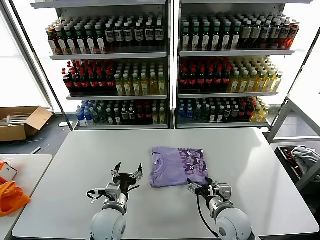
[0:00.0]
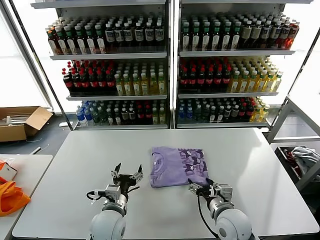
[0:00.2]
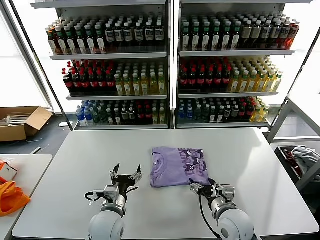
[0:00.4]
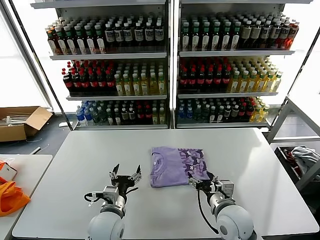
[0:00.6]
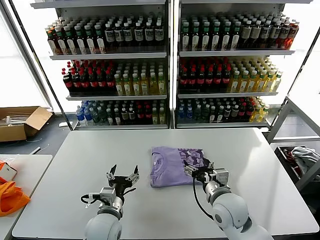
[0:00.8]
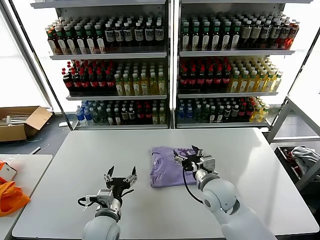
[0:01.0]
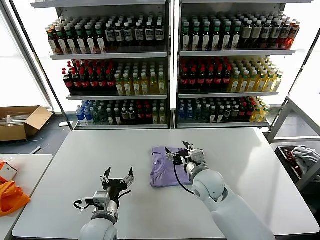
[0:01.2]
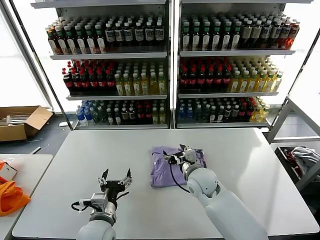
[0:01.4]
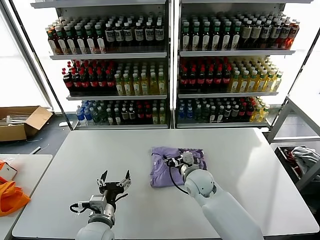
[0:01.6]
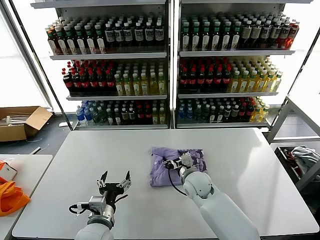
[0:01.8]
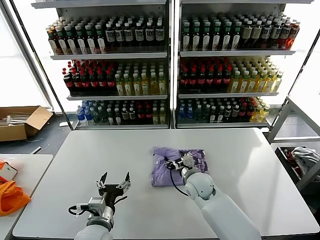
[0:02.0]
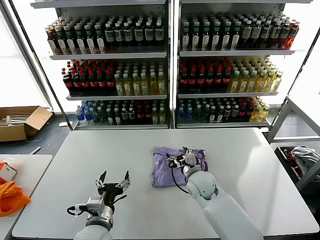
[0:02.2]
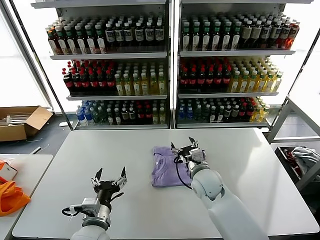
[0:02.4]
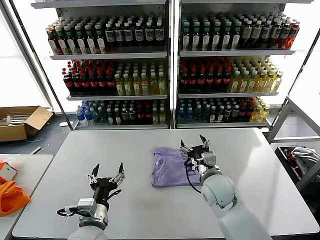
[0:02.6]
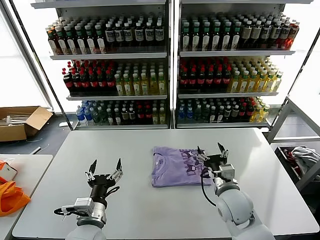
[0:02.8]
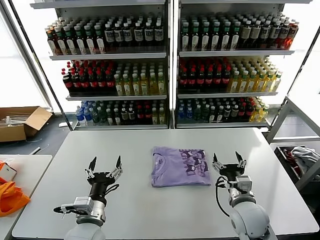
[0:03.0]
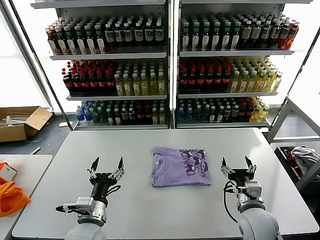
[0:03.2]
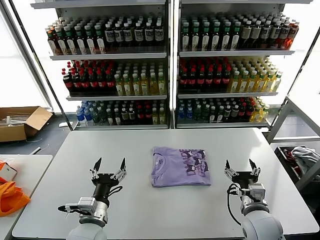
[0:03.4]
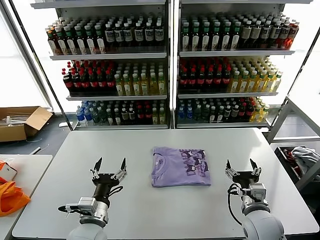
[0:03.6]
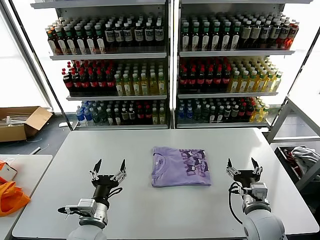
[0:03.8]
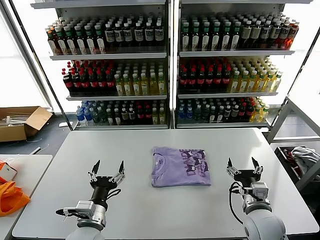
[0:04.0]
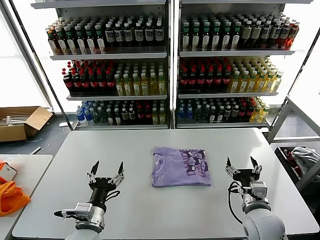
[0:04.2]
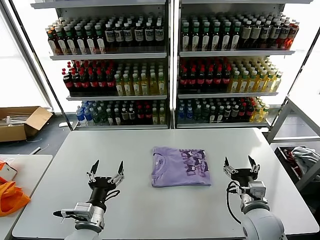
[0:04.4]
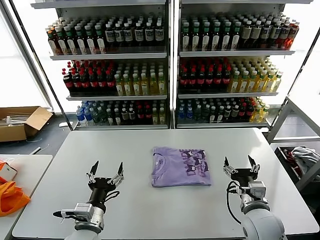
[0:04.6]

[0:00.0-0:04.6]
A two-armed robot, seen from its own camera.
Task of the whole recording: fold and organize the clothes.
Step, 0:00.0 to 0:02.2: Drag the clothes to the center of the table.
0:00.0 to 0:01.6: The right gripper travels forward and to the left by some 15 cm.
0:01.6 to 0:03.0: The right gripper shifts about 15 cm backward and to the right.
0:03.0 to 0:04.6: The right gripper moves approximately 5 cm.

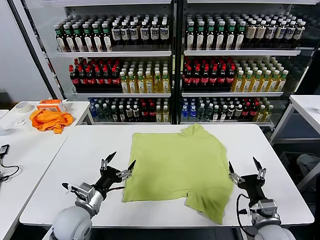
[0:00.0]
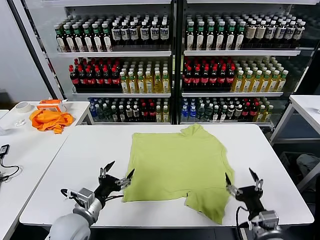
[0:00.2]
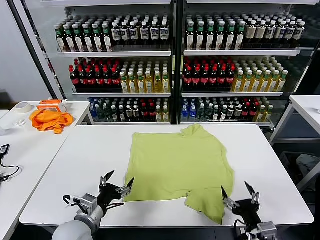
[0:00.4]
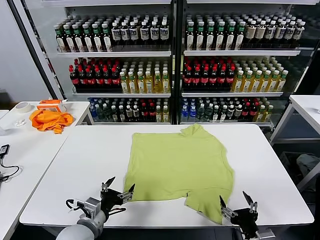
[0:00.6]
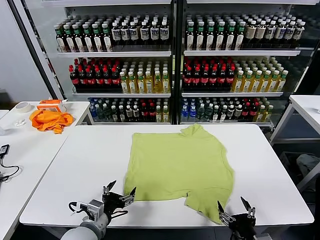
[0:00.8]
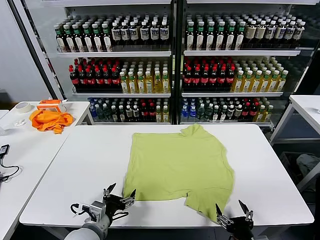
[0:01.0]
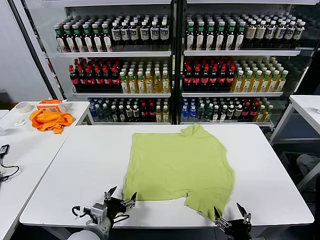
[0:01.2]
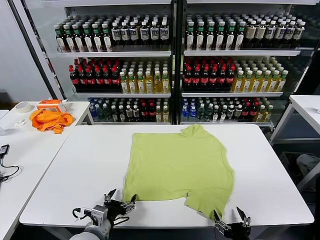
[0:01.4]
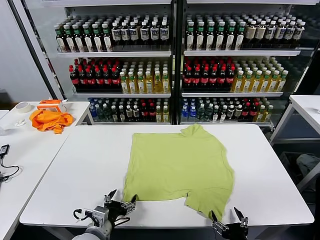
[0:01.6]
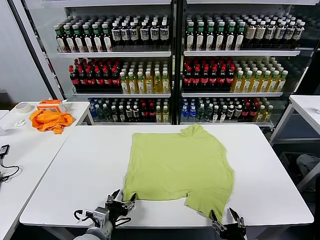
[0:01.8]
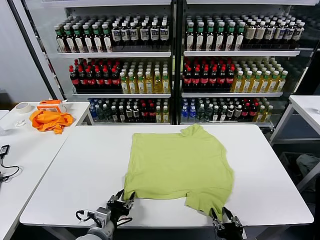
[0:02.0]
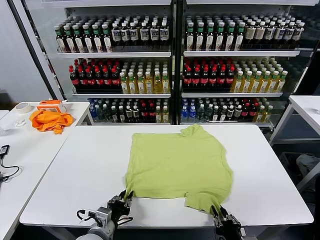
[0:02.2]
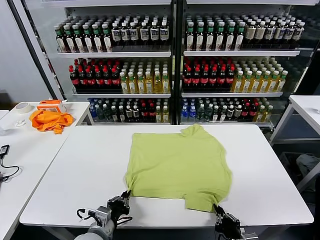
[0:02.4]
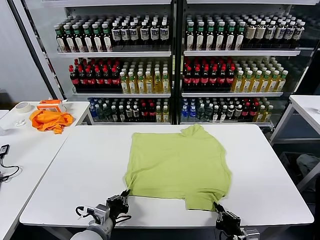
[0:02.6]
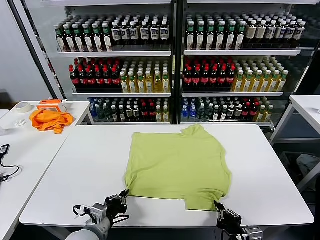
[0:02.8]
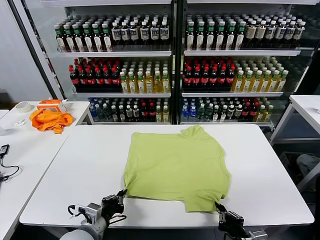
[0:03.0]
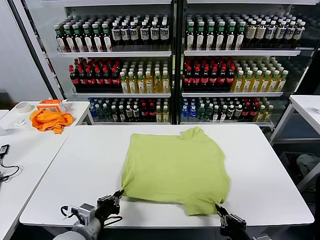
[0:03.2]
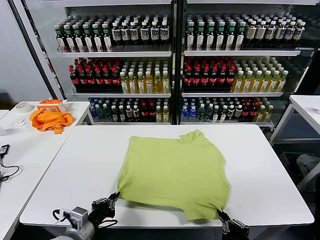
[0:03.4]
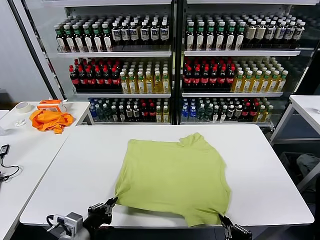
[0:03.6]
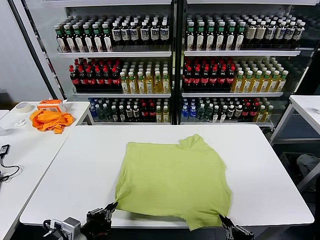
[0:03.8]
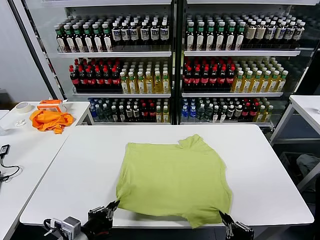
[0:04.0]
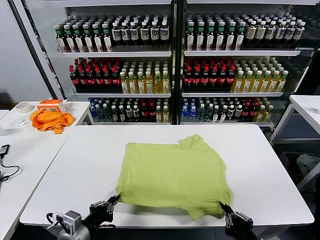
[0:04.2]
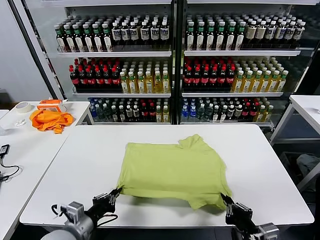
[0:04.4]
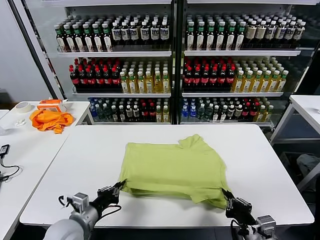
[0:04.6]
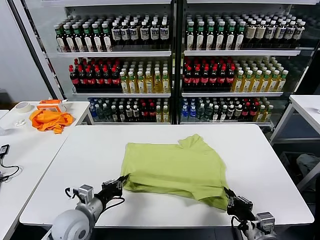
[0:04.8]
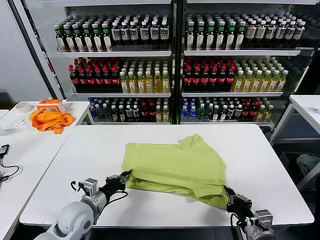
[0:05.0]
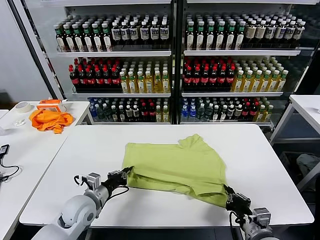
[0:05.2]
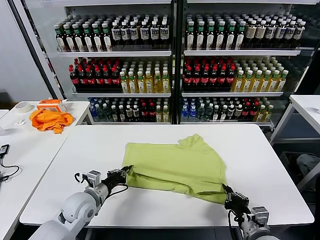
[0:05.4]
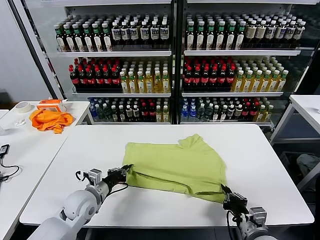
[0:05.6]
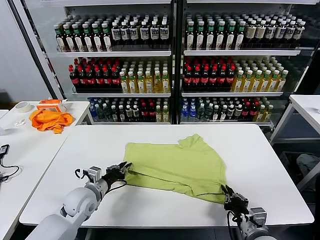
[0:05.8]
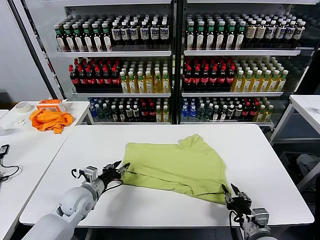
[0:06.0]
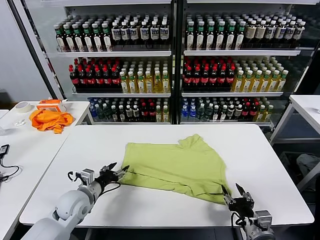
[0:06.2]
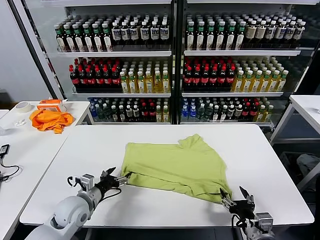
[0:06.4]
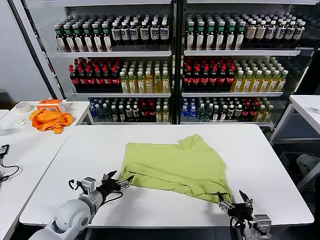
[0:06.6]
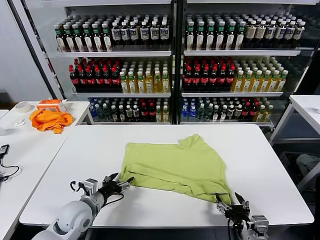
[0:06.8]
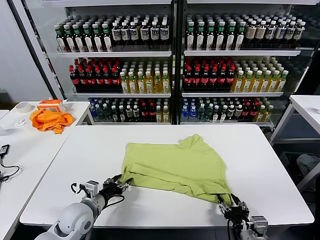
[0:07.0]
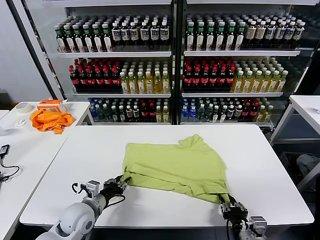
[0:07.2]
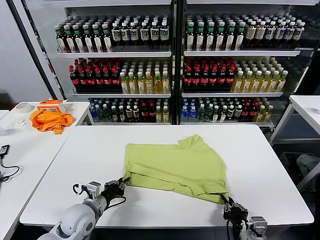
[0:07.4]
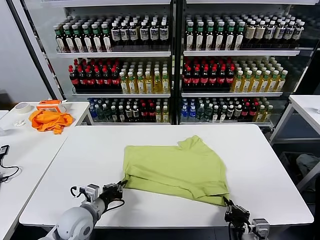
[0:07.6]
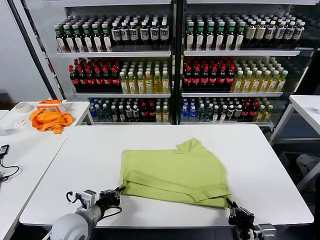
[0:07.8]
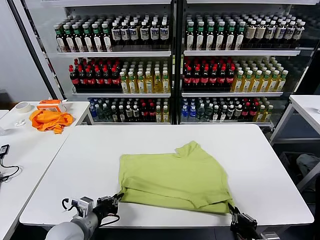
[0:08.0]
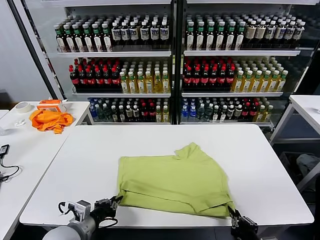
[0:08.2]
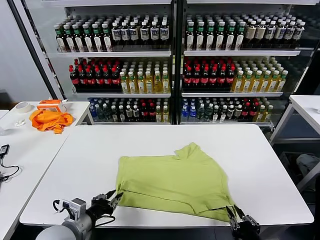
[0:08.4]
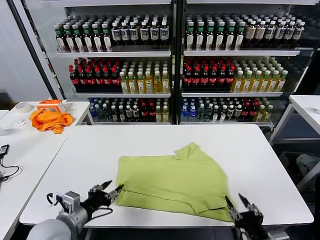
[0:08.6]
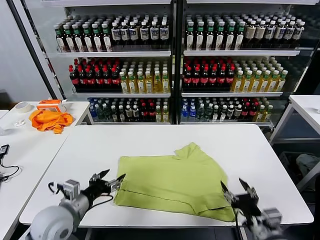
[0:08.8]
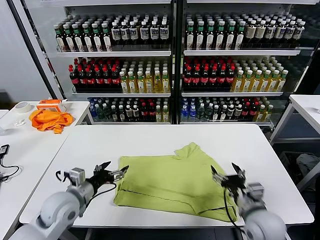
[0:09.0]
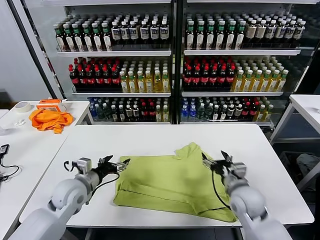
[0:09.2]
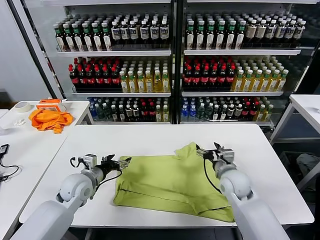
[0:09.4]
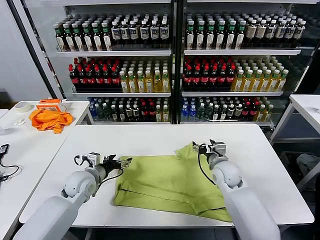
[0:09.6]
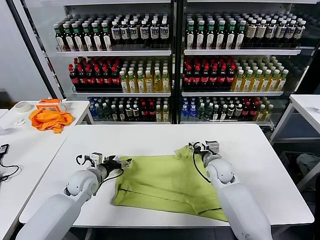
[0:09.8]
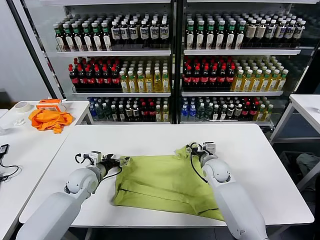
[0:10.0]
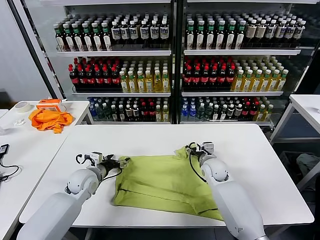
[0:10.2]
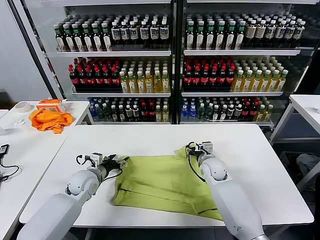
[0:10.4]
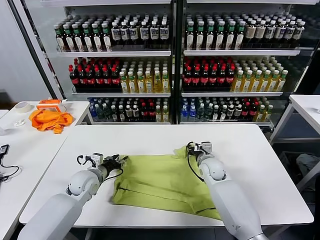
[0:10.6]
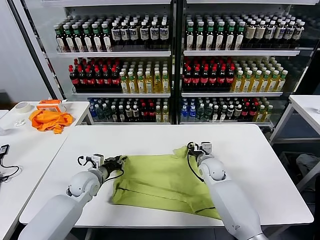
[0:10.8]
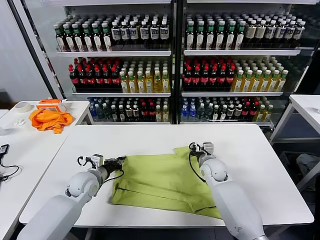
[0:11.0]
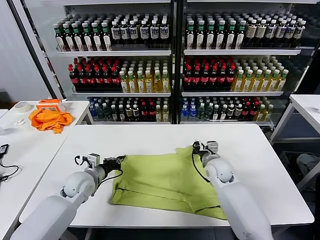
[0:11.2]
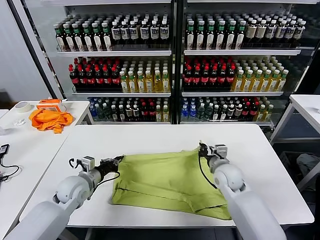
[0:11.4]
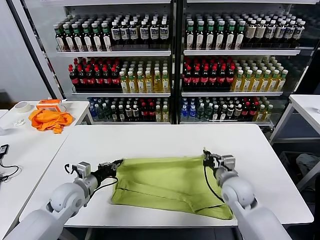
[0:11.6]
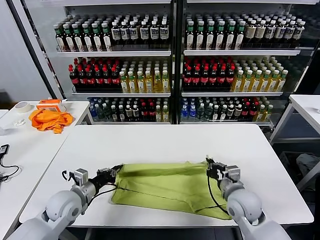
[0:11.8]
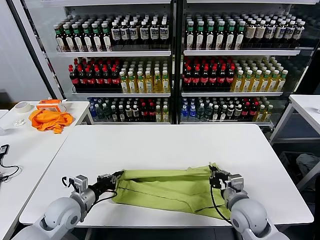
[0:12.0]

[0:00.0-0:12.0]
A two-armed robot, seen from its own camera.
Task of the whole recording: fold and organize the clothes.
Step, 0:00.0 to 0:02.4: use both grippers simultaneously to clamp the lower edge of the clothing fabric.
Step, 0:02.6 to 0:06.0: use both grippers to drag the lower edge of the fabric forward and fold it over the upper edge.
Step, 0:06.2 to 0:08.4: Drag the clothes downward with both gripper.
Step, 0:08.6 to 0:11.0: use both grippers simultaneously to clamp the upper edge of the clothing fabric.
0:01.6 to 0:03.0: The left gripper closes; the right gripper closes.
0:04.4 to 0:06.0: The right gripper shifts by about 5 cm, and opens. The left gripper goes roughly 15 cm forward, and opens.
0:06.0 to 0:07.6: The left gripper heads backward, covering approximately 5 cm, and closes. Meanwhile the right gripper closes up.
0:07.6 to 0:09.0: The left gripper shifts about 5 cm upward, moves some 5 cm backward and comes back, and opens. The right gripper travels forward by some 10 cm, and opens up.
0:09.0 to 0:10.4: The right gripper heads forward, covering about 20 cm; the left gripper is displaced forward and downward by about 15 cm.
0:10.4 to 0:12.0: The right gripper goes some 20 cm backward, and closes up. Meanwhile the left gripper moves backward, about 10 cm, and closes its fingers.

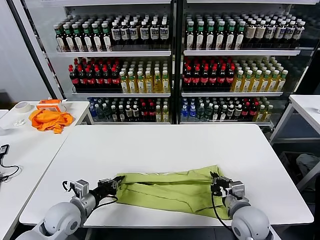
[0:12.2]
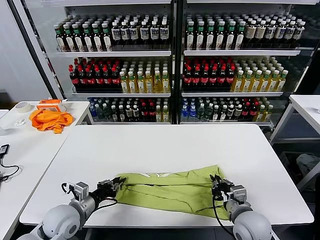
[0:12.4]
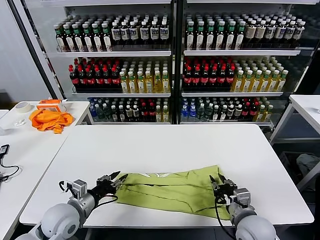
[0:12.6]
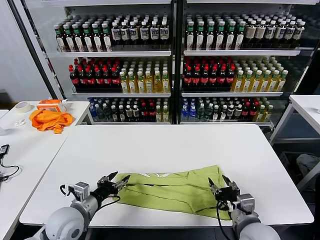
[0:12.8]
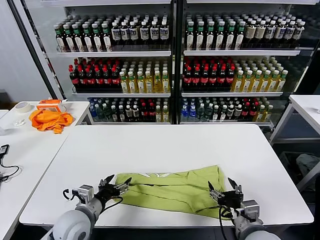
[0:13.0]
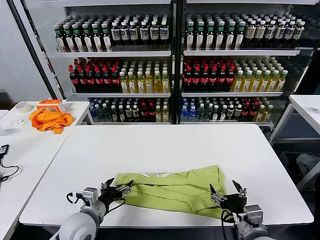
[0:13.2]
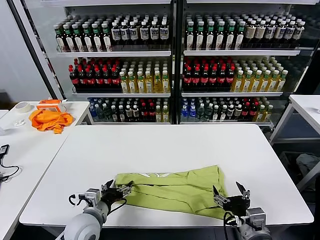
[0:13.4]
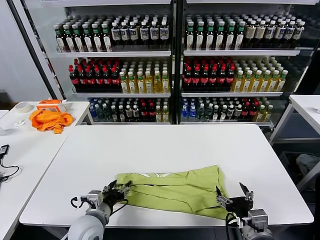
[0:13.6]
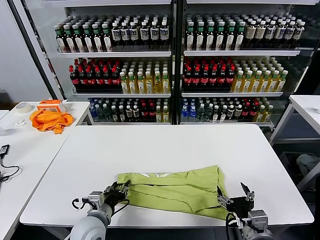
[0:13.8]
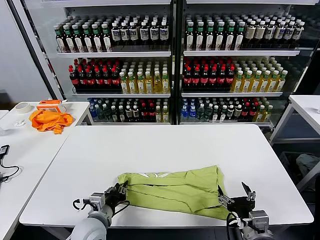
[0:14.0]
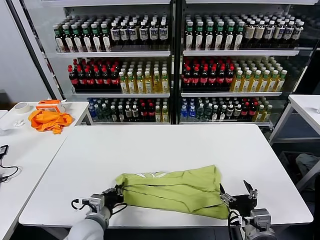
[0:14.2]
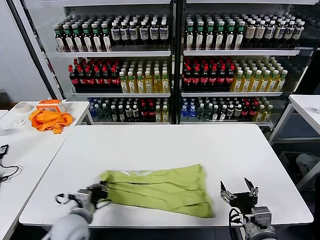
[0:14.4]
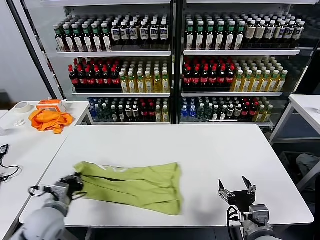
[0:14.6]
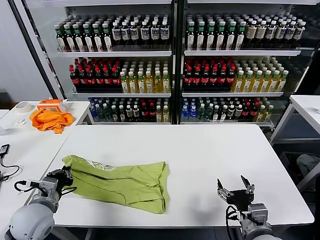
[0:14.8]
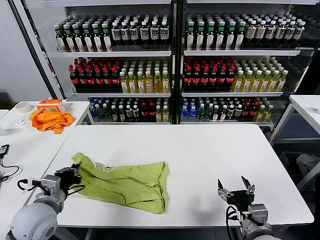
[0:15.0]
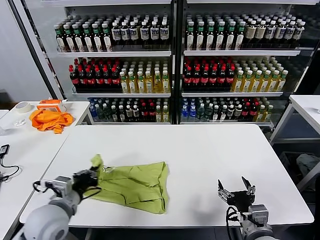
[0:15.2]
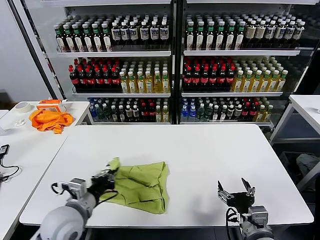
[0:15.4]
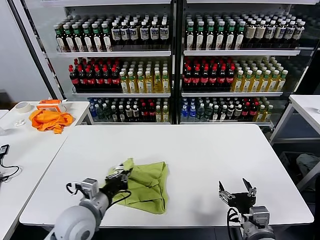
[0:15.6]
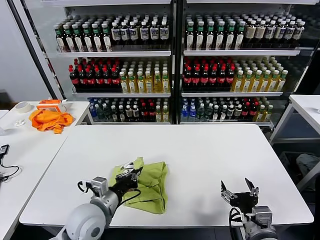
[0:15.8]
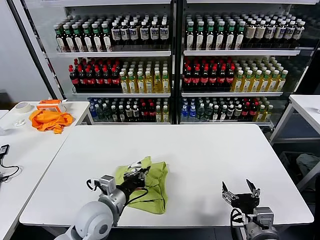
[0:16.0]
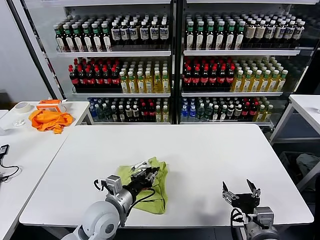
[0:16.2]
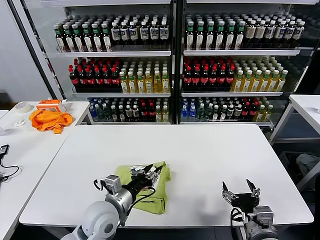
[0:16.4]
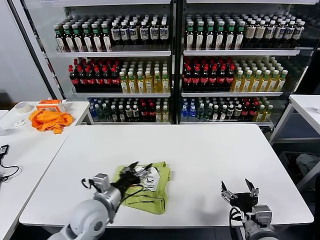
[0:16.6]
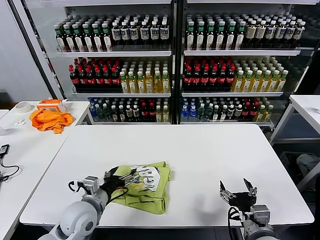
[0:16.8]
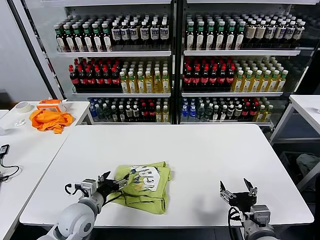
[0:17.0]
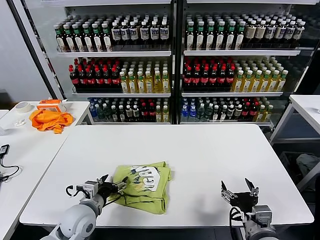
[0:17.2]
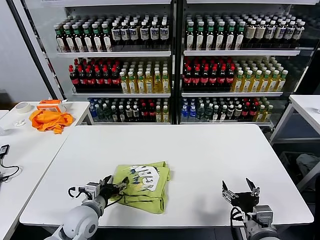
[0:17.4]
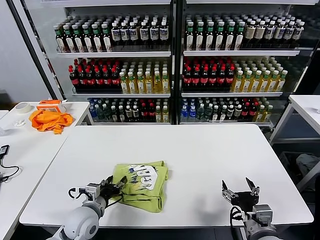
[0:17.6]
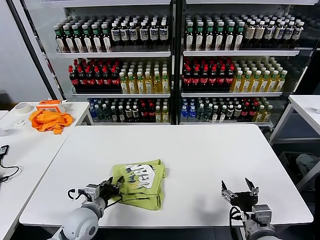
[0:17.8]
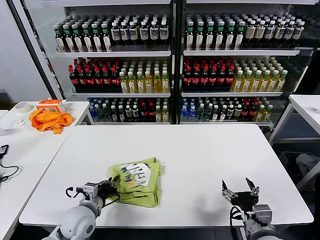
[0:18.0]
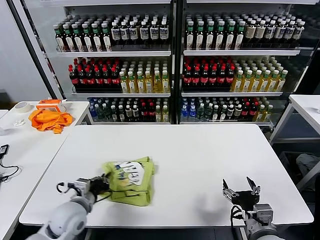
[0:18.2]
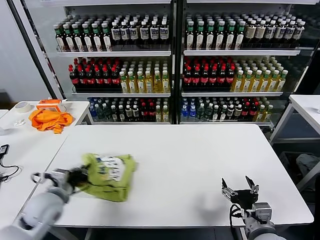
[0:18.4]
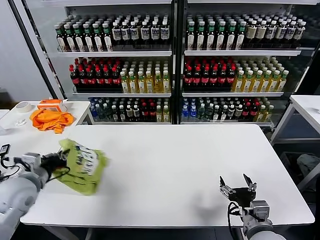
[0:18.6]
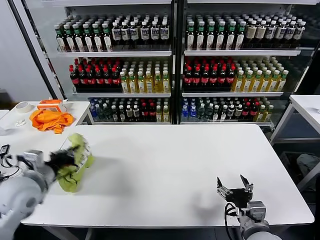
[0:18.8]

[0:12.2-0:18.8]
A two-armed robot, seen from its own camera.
Task of the whole recording: fold and organize the clothes.
Step, 0:12.8 to 0:14.2: use the left gripper to clamp the left edge of the fabric.
Step, 0:14.4 to 0:16.4: use the left gripper to drag the left edge of the fabric to the left and folds it over the right edge.
0:12.2 to 0:13.8: The left gripper goes about 10 cm to the right, and opens up. The right gripper heads backward, covering about 10 cm, and opens up.
0:13.8 to 0:15.4: The left gripper moves upward, about 10 cm, goes to the left and returns, roughly 15 cm each way, and closes its fingers.
0:15.4 to 0:17.2: The left gripper travels downward by roughly 10 cm, moves some 10 cm to the right and comes back, and opens up.
0:17.2 to 0:18.8: The left gripper shifts approximately 20 cm upward and to the left, and closes.
